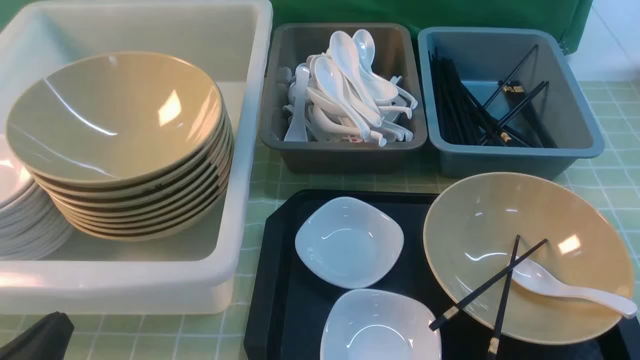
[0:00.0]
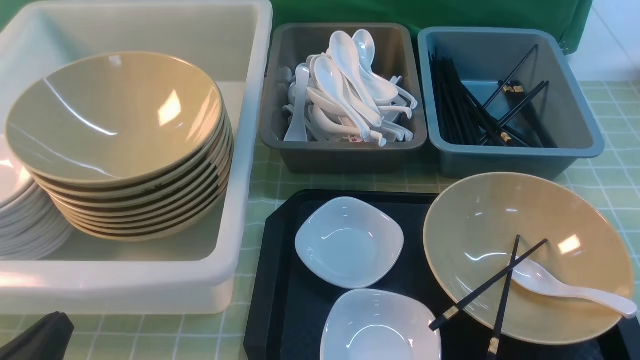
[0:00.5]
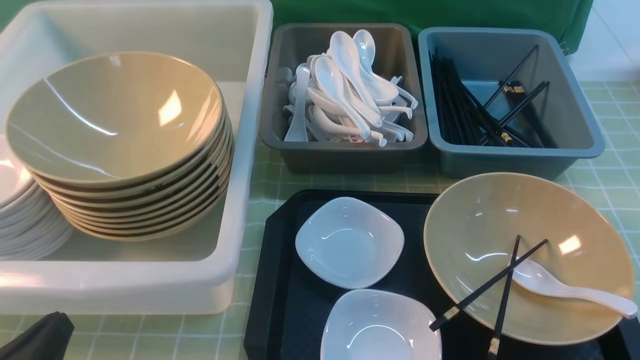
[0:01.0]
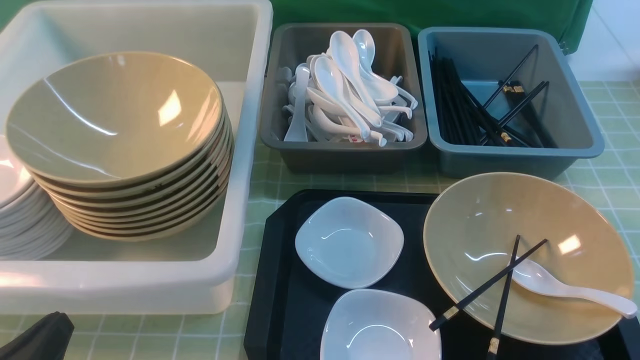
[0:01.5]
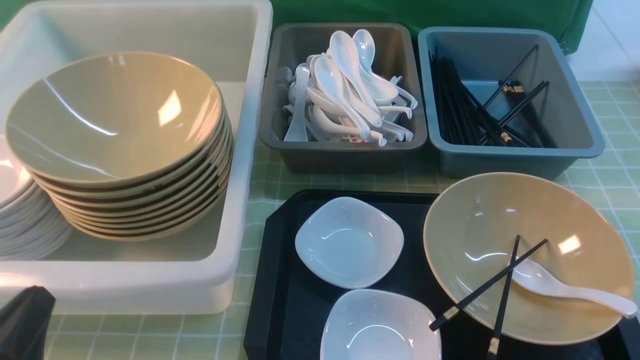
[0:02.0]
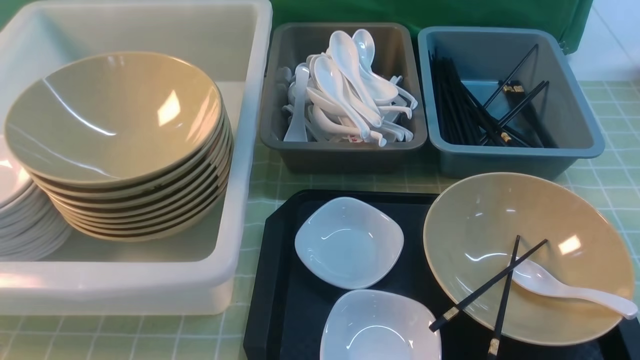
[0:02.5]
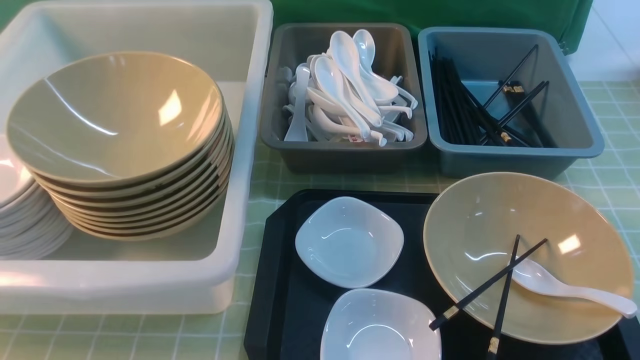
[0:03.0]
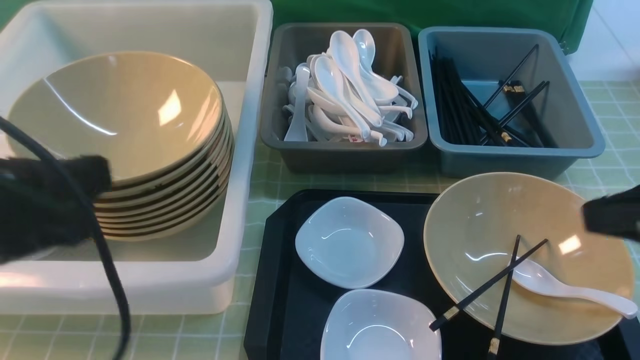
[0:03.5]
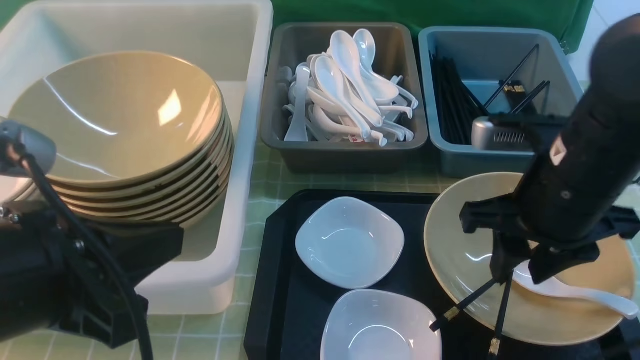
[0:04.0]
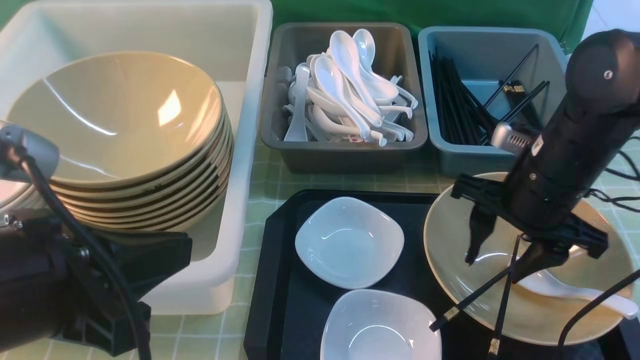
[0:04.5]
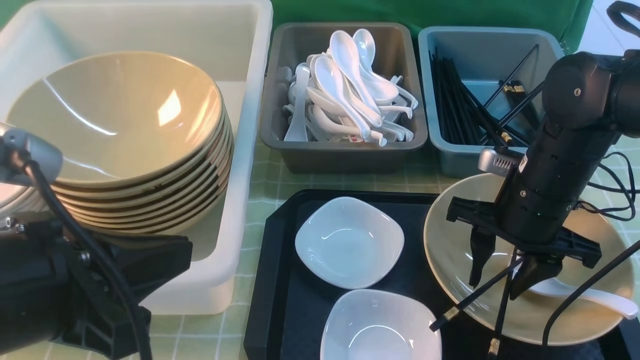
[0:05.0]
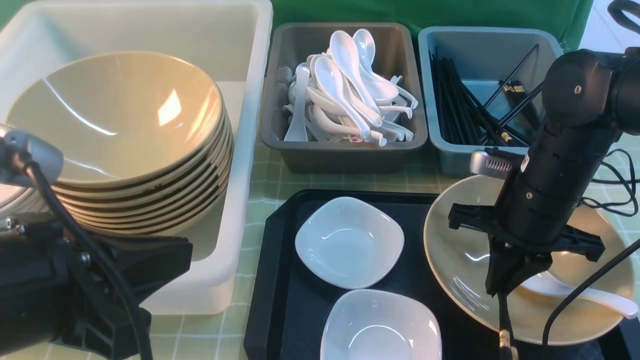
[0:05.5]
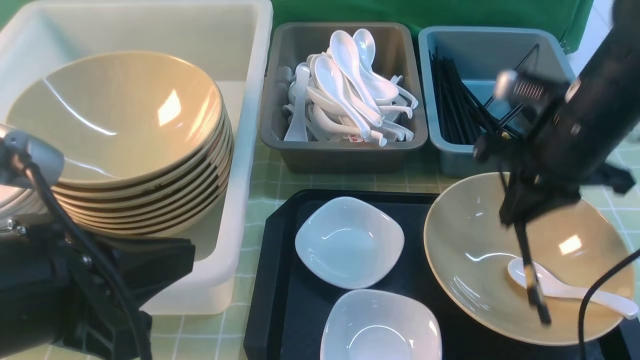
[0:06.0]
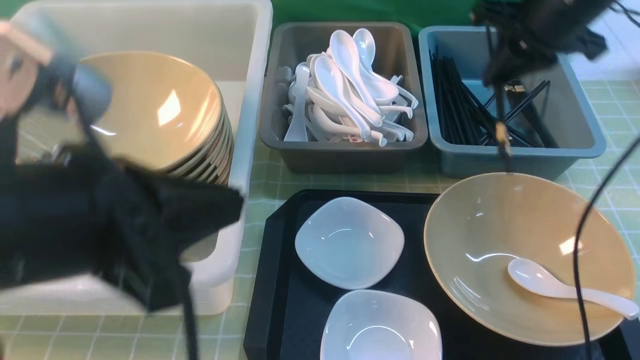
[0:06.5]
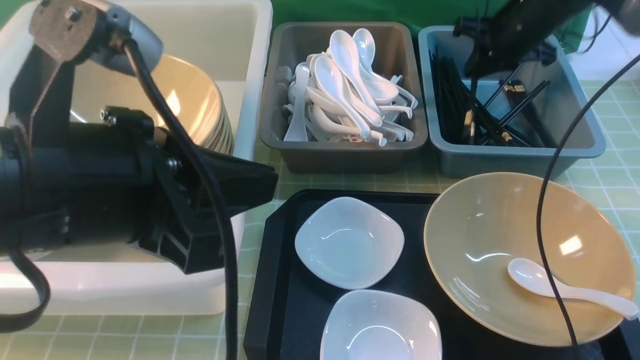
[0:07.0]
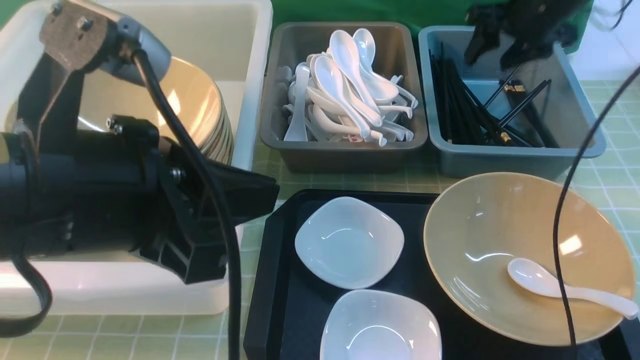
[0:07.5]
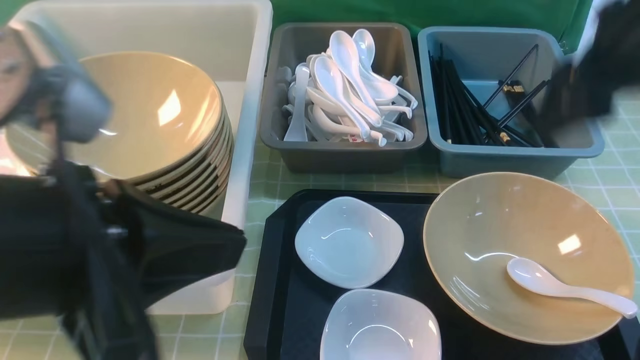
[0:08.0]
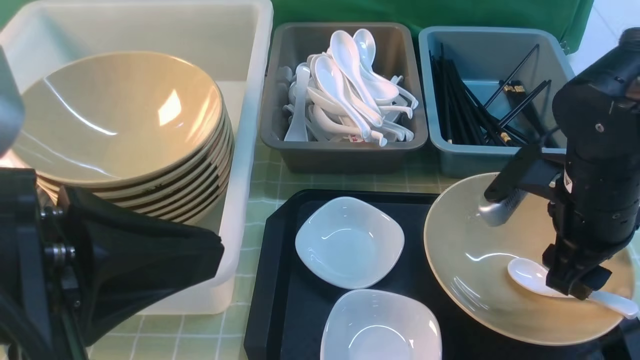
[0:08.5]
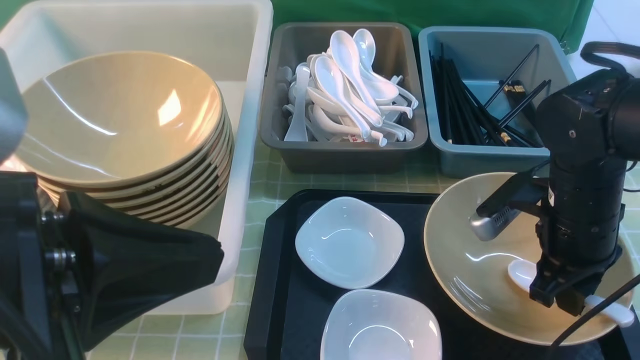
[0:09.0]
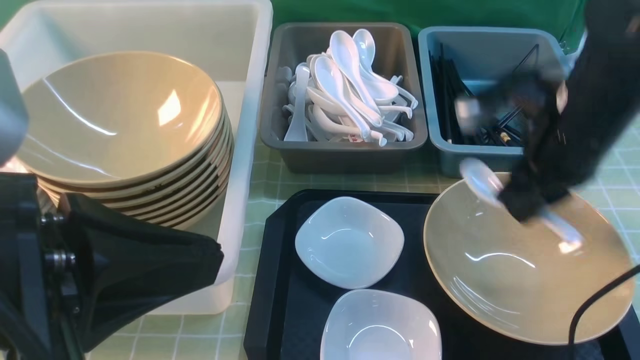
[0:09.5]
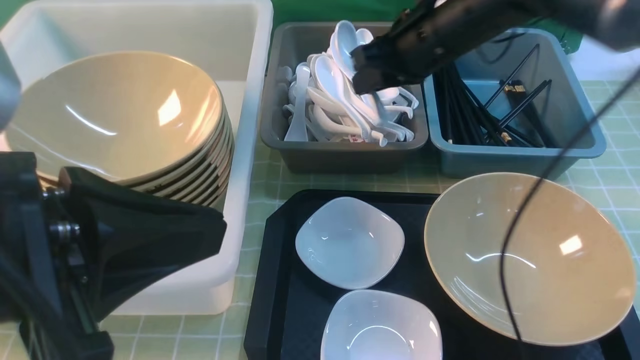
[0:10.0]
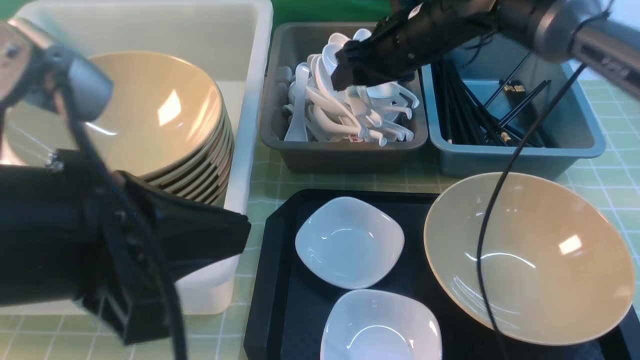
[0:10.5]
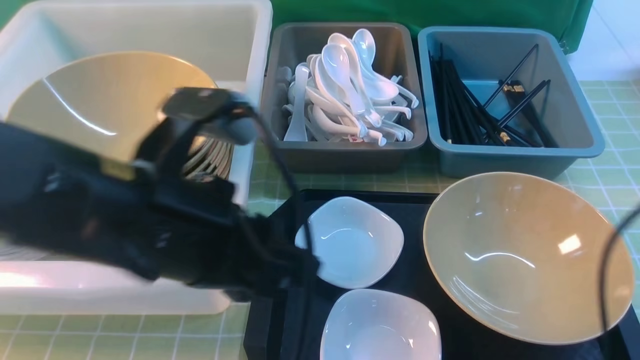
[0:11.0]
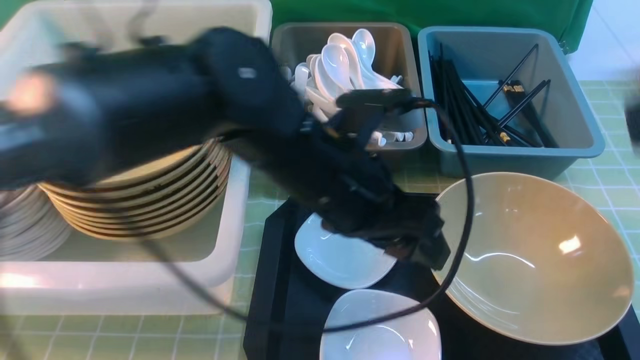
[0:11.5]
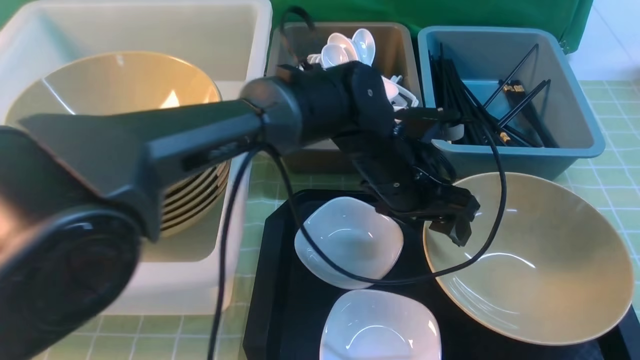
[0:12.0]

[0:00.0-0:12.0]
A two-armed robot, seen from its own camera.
Task of the whole recording: on green table put chopsticks spoon bowls plates into blue grey white boxes.
Step, 0.0 to 6.0 s: use the right arm to grab the chopsticks.
Step, 6.5 to 7.0 s: use the right arm to put the chopsticks into the small storage box on the right.
Step, 7.5 to 9.0 s: use the right arm to grab the soup spoon in the middle.
Step, 9.5 to 10.5 s: use the right arm to put the soup spoon into the small storage box in the middle.
0.0 to 2.0 s: There are only small adjustments of the grippers.
2.0 to 4.0 s: The left gripper is displaced upward and to the right by roughly 15 cm, while the right gripper shifts roughly 25 cm forward, to the left and upward.
4.0 to 6.0 s: The right gripper goes about 5 cm forward, moves roughly 5 cm downward and comes back, and closes its fingers.
6.0 to 8.0 s: The right gripper shifts about 5 cm upward, goes forward and returns, some 20 cm each way, and opens its fingers, while the left gripper shifts by approximately 5 cm.
8.0 to 10.0 s: The right gripper goes approximately 15 cm forward and to the left, and closes up.
10.0 to 12.0 s: The right gripper heads backward, covering about 35 cm, and opens and closes again. Meanwhile the left gripper travels forward, to the right and downward by roughly 35 cm, and opens up.

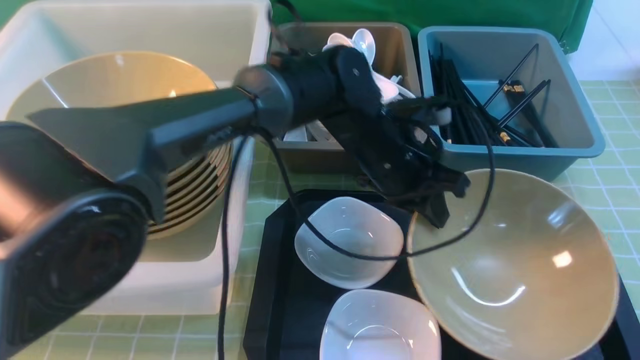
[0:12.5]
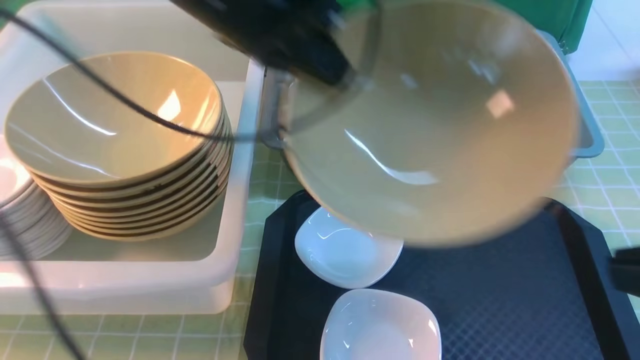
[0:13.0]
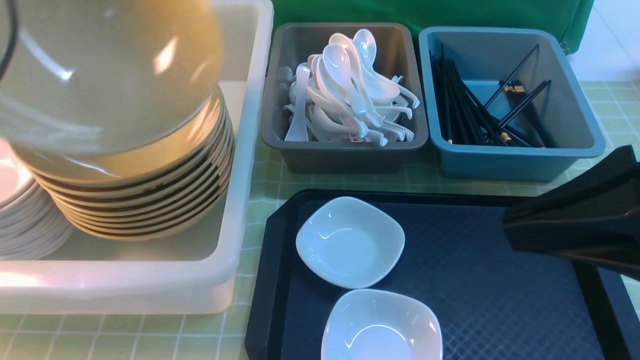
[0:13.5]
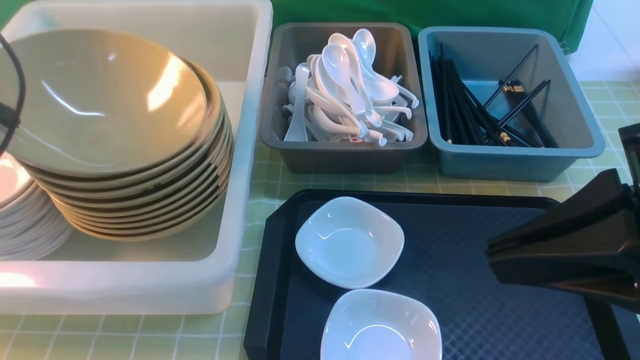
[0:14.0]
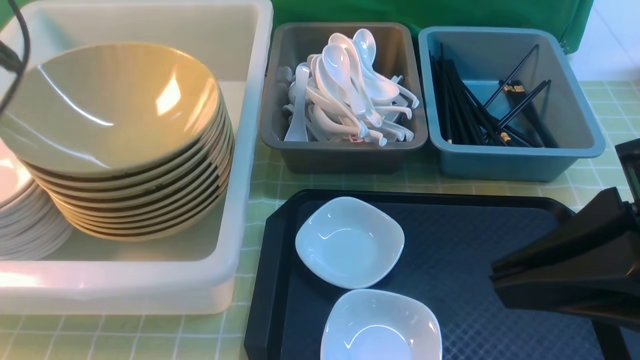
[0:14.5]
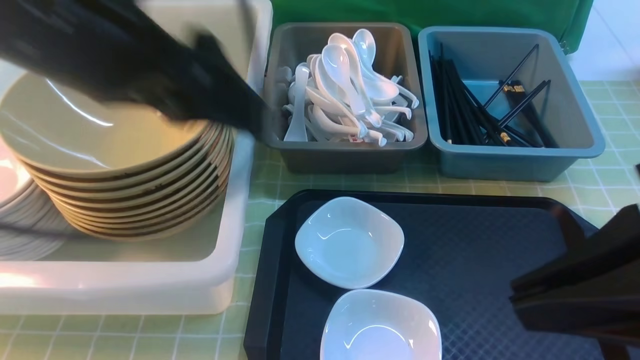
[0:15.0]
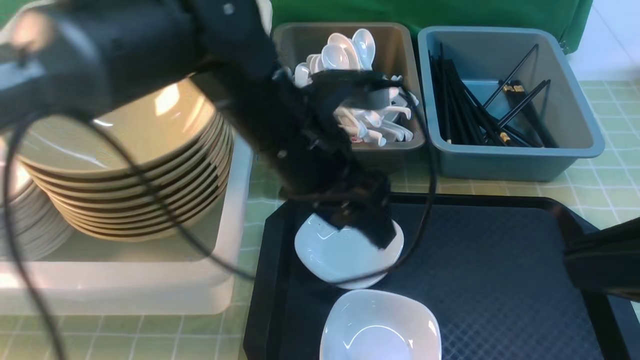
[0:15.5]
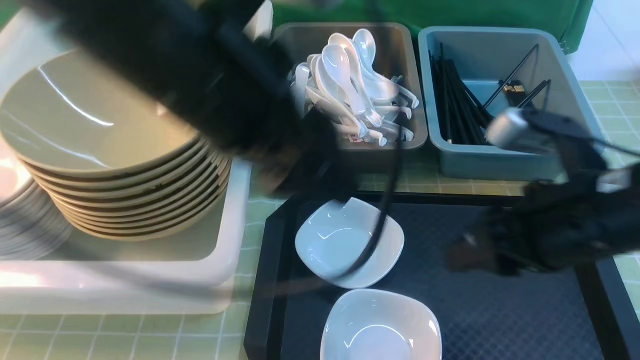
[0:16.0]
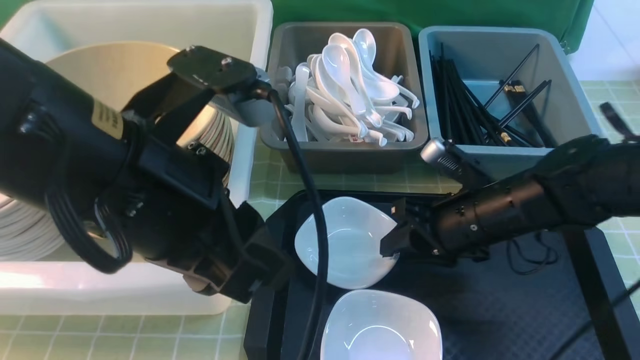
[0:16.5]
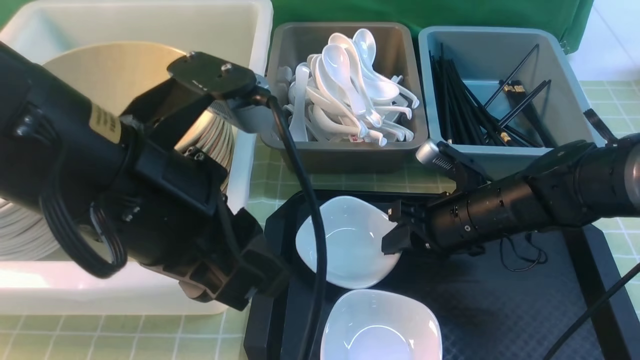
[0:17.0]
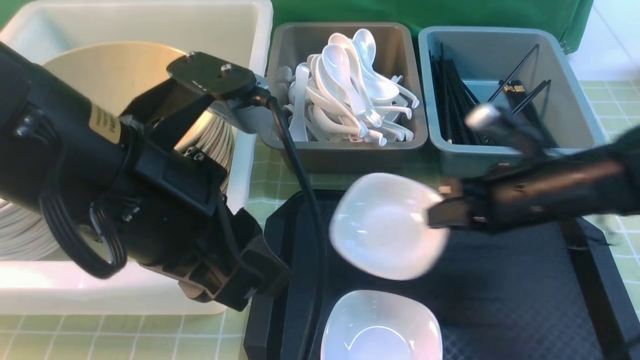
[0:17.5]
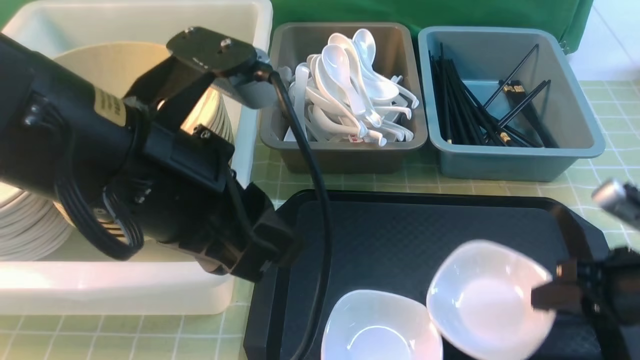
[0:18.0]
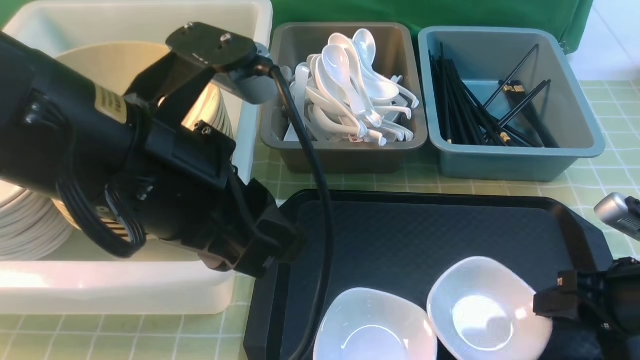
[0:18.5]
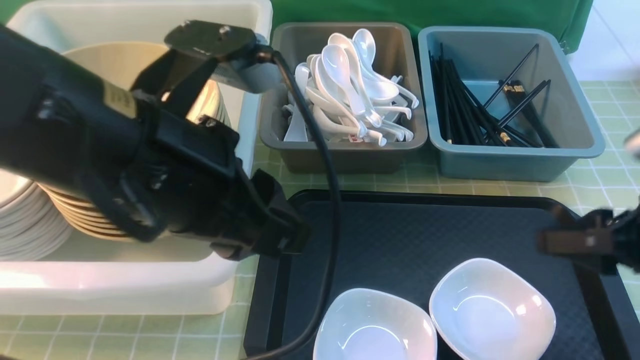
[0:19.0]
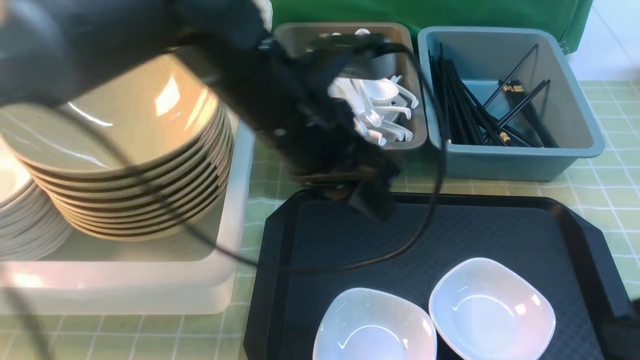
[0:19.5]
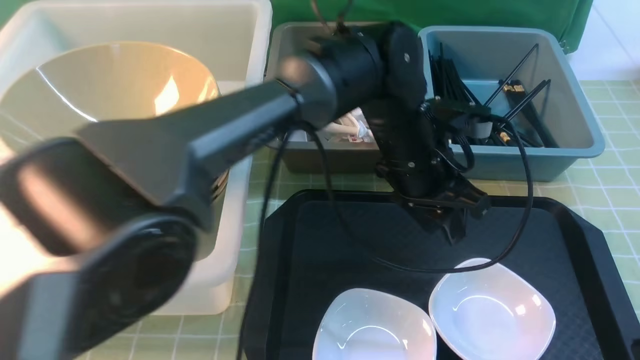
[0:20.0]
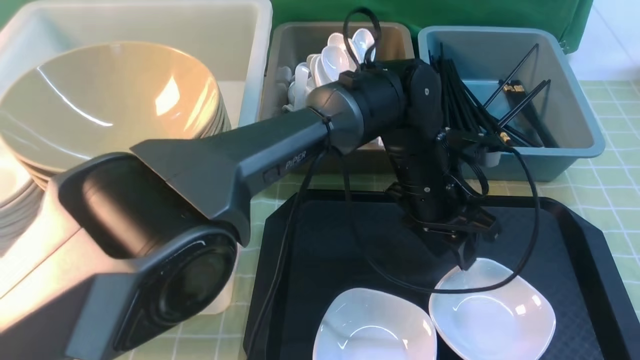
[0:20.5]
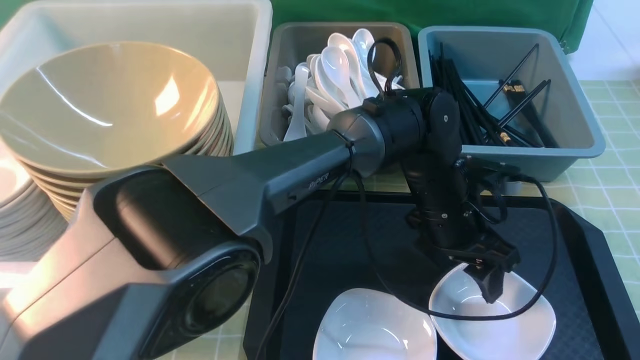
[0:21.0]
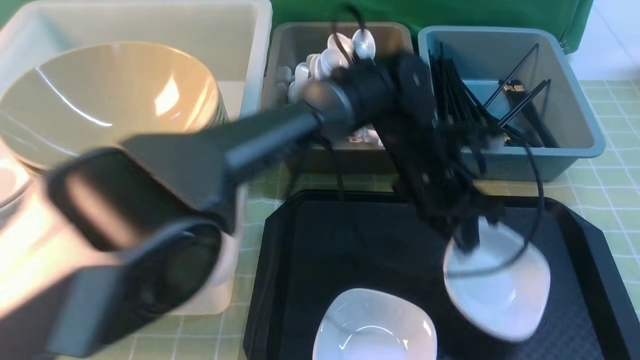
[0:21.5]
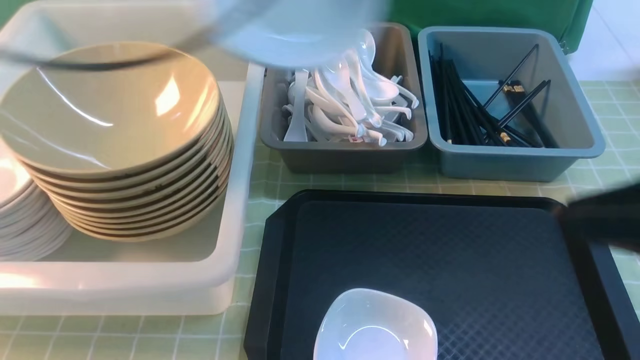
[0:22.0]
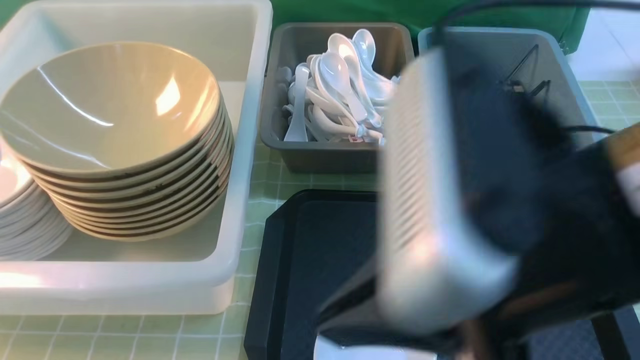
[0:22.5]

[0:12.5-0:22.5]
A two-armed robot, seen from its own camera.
Task of the whole recording: on green table put chopsticks spoon bowls plates into blue grey white boxes.
Step, 13.0 to 14.5 s: use the left arm to put the noodle bowl into the large storage box on the left.
Step, 15.0 to 17.0 s: use the right arm to grab the plate.
Step, 17.5 to 18.5 s: use the right arm to put the plate on the tray.
Step, 19.0 to 21.5 s: use the left arm to grab the plate.
12.5 to 14.5 s: The right gripper heads to the left and forward, covering roughly 10 cm. Meanwhile the left gripper heads to the left and upward, covering approximately 40 cm, and opens.
14.5 to 16.5 s: The left gripper goes about 25 cm to the right and backward, and closes. The right gripper goes approximately 30 cm downward and forward, and opens its fingers.
16.5 to 18.5 s: The right gripper travels to the right and backward by approximately 20 cm, and closes and opens again.
18.5 to 20.5 s: The left gripper goes about 30 cm to the right, downward and forward. The right gripper moves upward and backward, about 20 cm.
20.5 to 22.5 s: The right gripper moves to the left and upward, approximately 20 cm, and closes its fingers, while the left gripper is displaced to the left, upward and backward by some 50 cm, and closes up.
